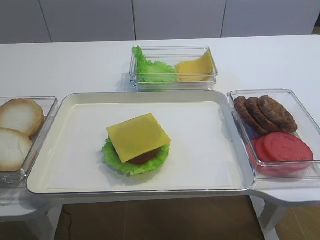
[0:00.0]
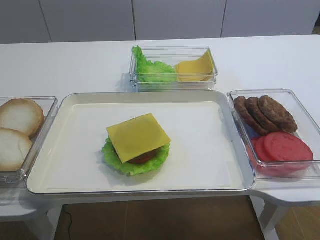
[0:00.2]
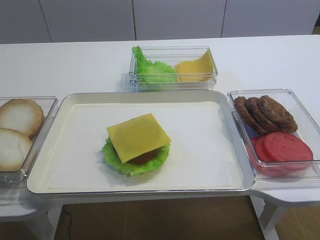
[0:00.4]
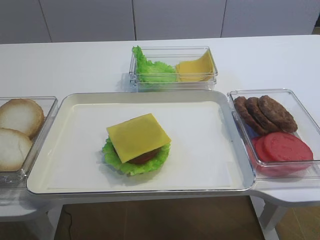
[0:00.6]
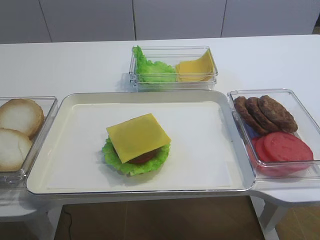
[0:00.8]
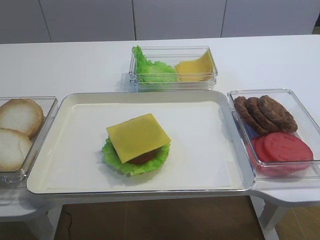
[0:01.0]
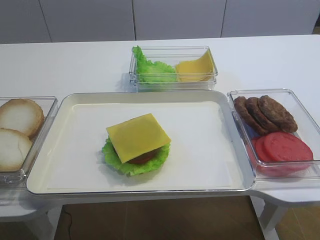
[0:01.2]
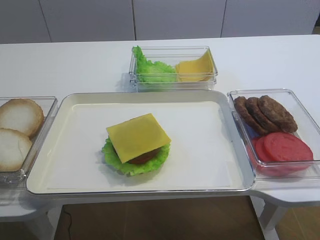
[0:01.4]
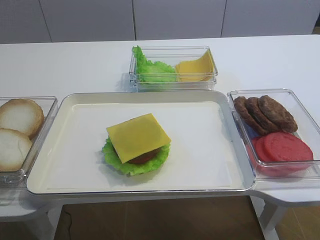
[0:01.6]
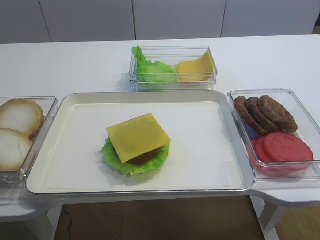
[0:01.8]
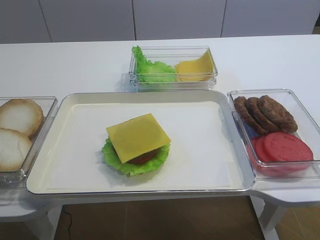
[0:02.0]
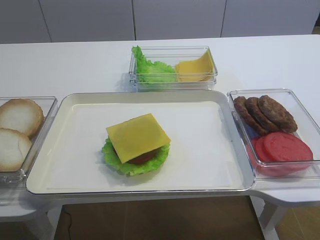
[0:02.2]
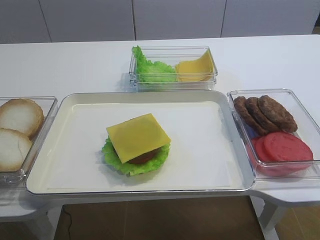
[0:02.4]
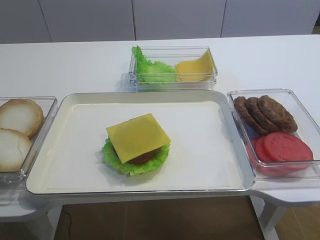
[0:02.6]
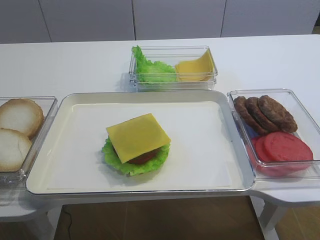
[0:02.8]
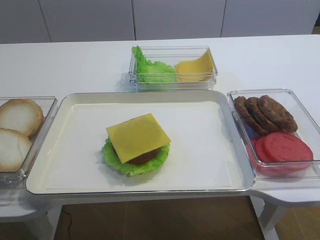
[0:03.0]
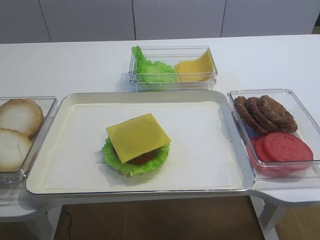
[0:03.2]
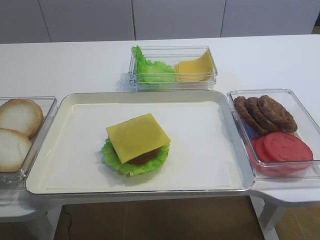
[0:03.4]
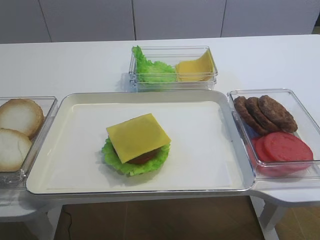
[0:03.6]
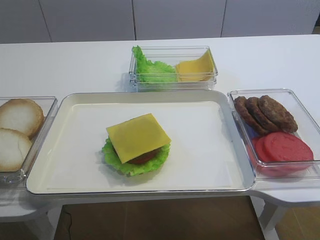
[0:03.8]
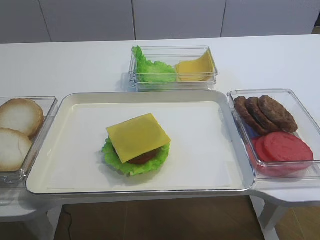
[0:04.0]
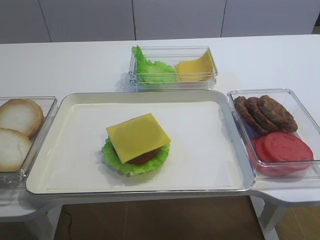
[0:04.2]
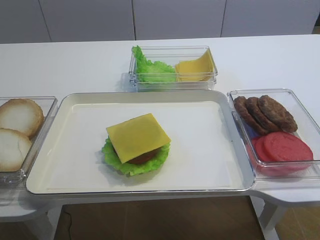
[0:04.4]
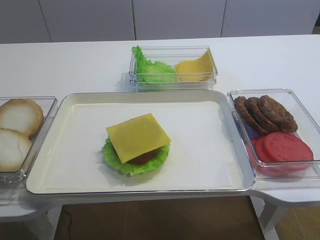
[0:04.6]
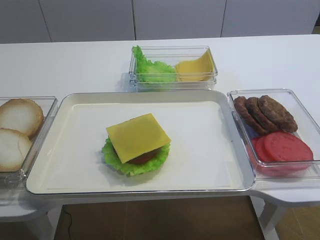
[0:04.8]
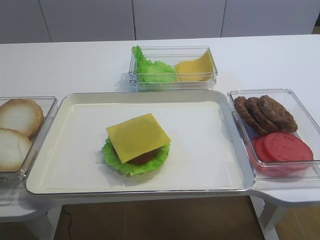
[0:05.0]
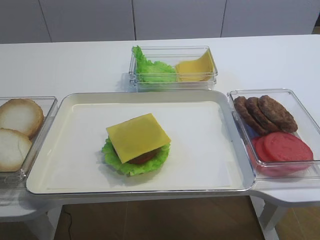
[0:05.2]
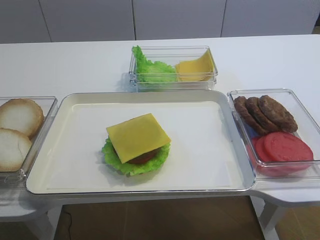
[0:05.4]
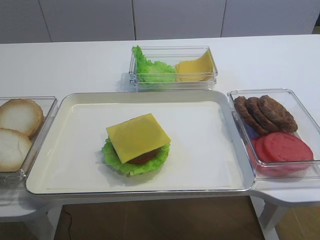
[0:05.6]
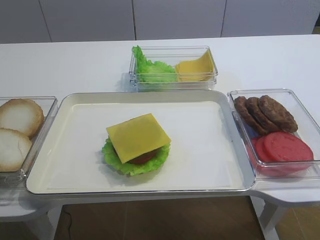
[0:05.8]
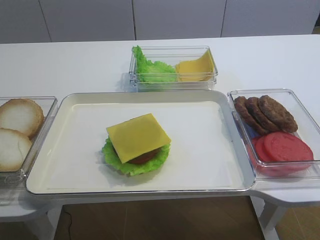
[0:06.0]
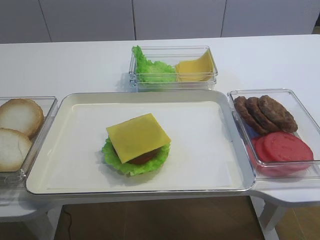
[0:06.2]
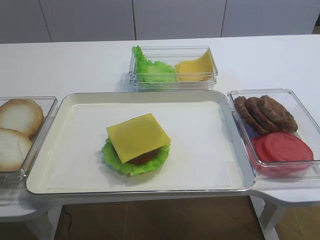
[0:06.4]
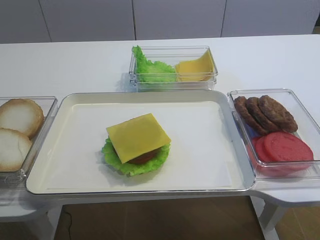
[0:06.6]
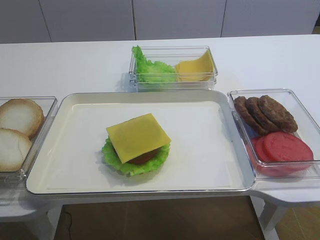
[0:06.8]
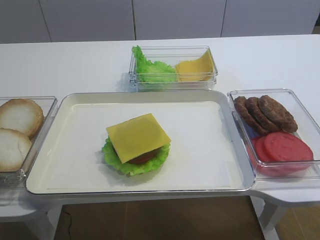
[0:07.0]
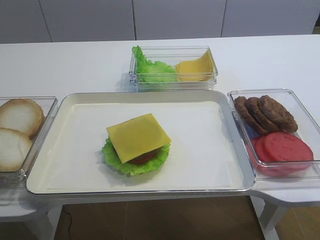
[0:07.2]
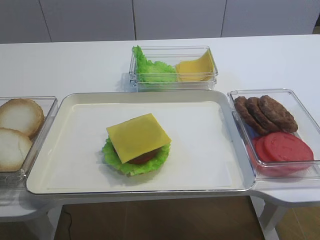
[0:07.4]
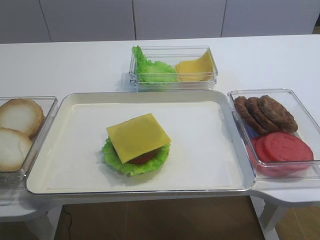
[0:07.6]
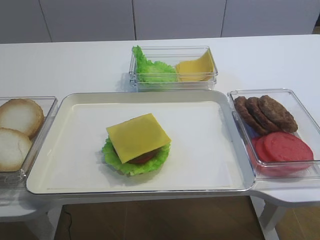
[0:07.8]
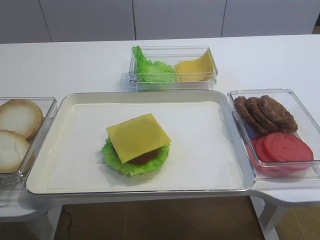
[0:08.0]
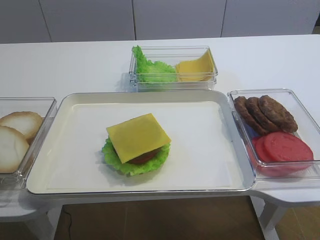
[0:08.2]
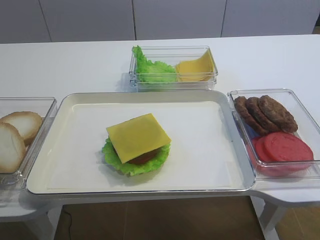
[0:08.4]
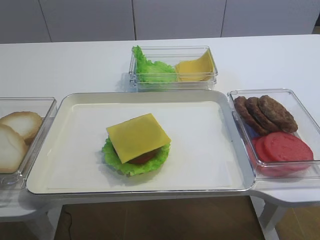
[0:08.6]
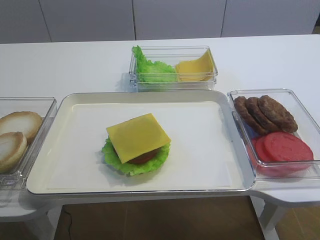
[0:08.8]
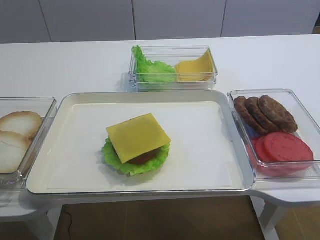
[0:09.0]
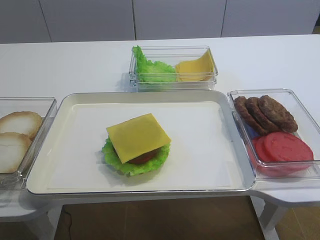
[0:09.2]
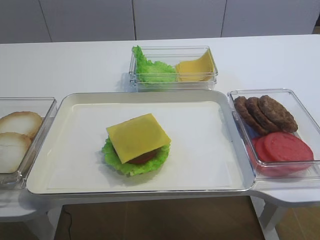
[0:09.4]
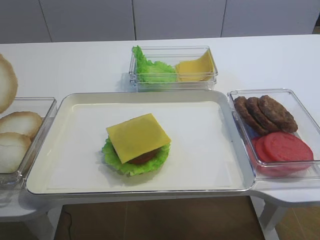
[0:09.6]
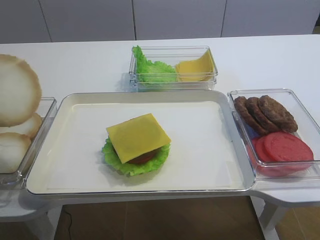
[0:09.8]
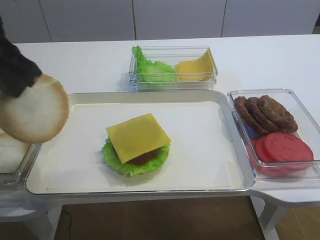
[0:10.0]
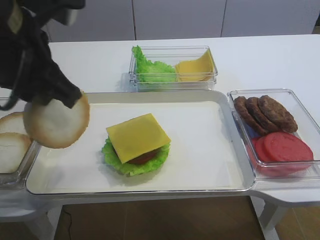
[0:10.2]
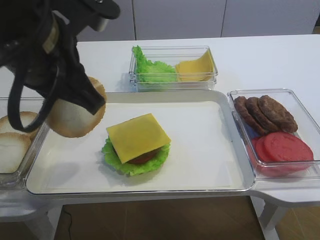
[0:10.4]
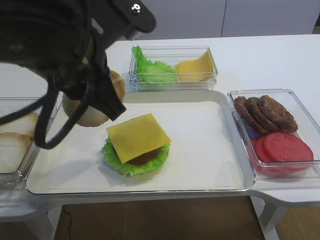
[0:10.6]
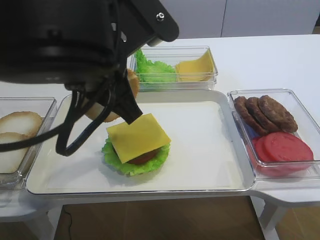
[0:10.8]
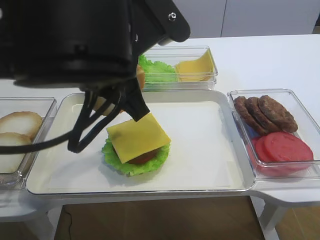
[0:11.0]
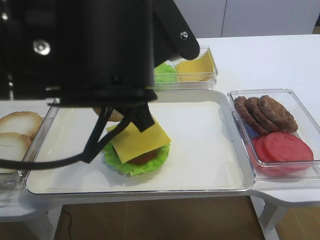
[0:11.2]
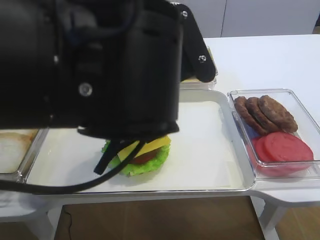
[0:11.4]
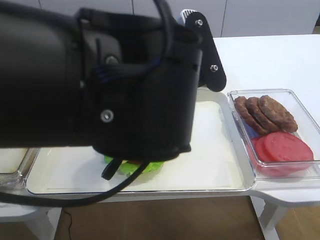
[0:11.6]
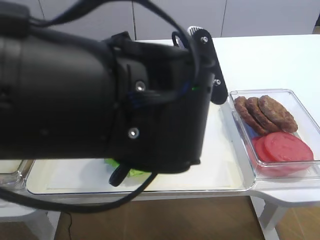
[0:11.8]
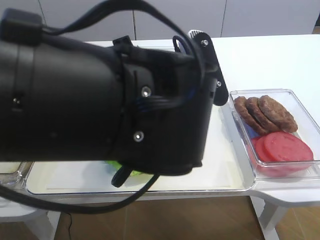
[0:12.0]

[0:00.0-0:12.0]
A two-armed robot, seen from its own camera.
Step, 0:00.0 to 0:09.4: Pick up the hamburger lid with the left gripper.
0:07.6 to 0:09.0: The left gripper shifts roughly 10 cm upward and backward.
0:09.0 to 0:10.4: The left gripper is displaced to the right by roughly 20 cm.
0:10.4 to 0:12.0: The left gripper shifts roughly 10 cm to the right and downward.

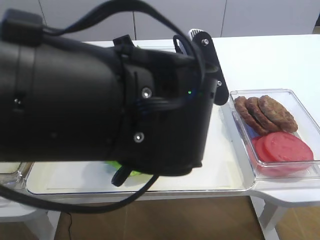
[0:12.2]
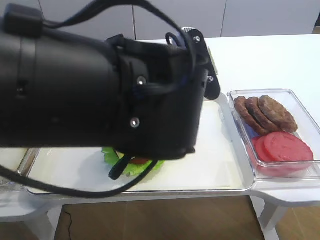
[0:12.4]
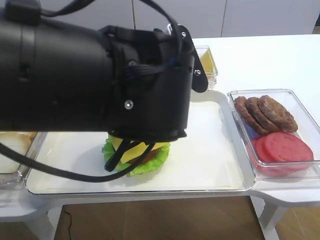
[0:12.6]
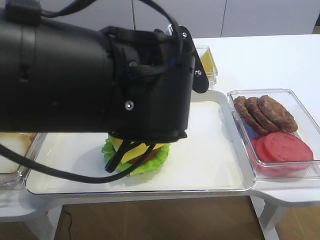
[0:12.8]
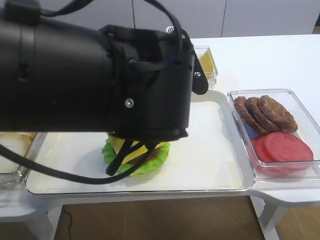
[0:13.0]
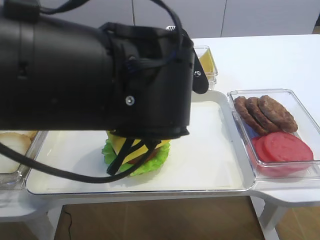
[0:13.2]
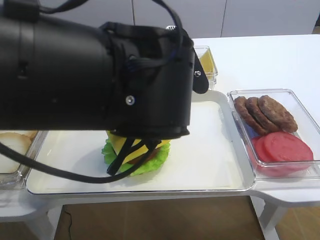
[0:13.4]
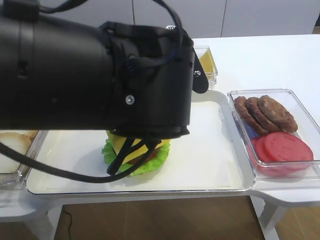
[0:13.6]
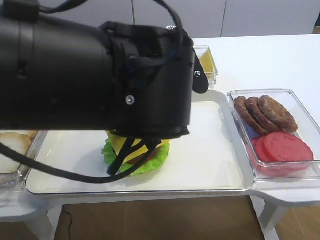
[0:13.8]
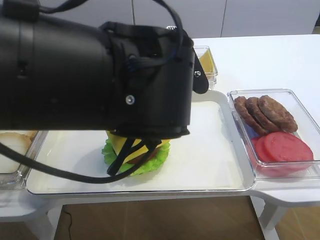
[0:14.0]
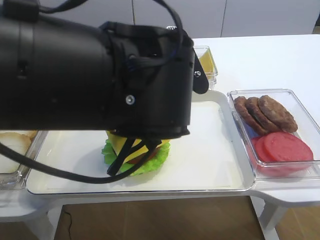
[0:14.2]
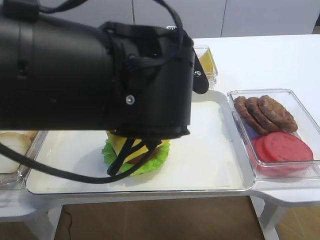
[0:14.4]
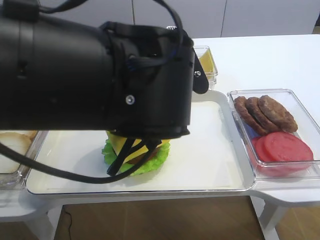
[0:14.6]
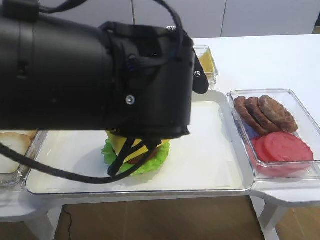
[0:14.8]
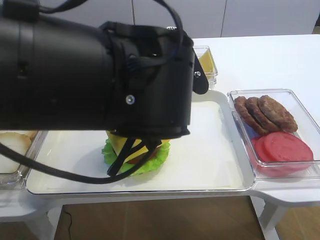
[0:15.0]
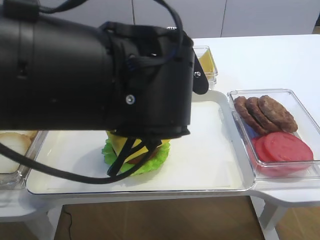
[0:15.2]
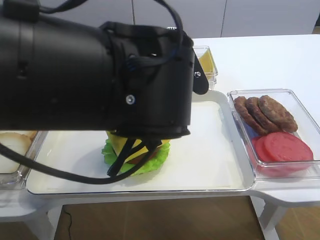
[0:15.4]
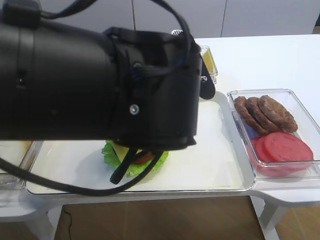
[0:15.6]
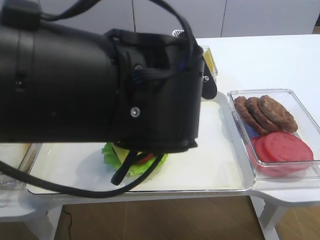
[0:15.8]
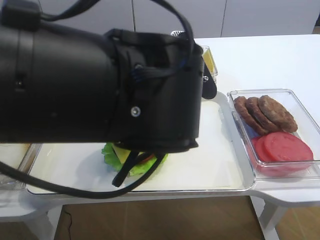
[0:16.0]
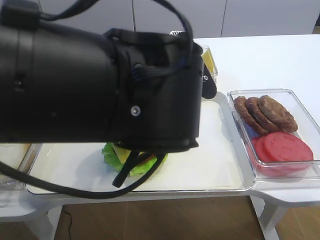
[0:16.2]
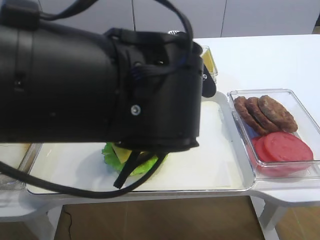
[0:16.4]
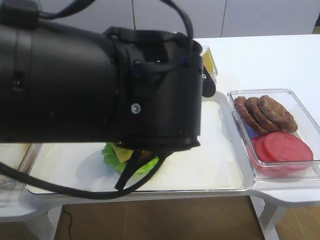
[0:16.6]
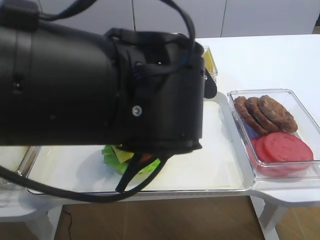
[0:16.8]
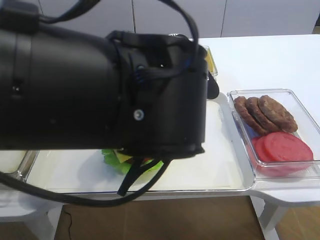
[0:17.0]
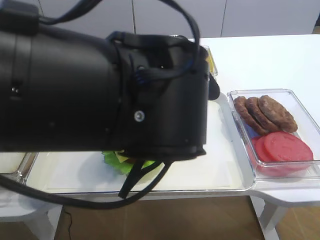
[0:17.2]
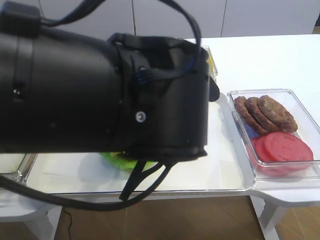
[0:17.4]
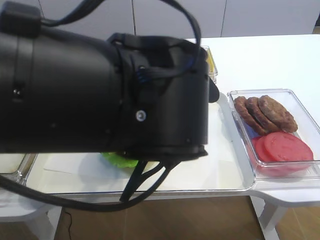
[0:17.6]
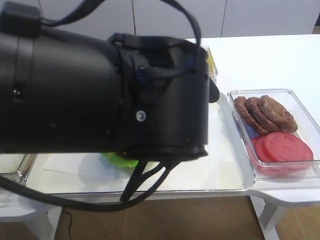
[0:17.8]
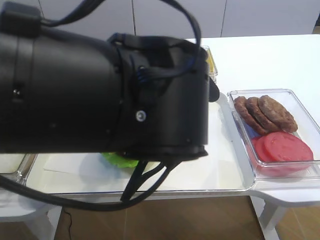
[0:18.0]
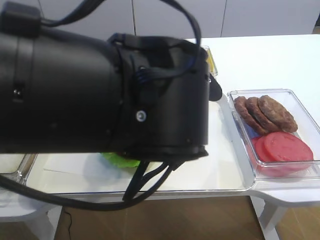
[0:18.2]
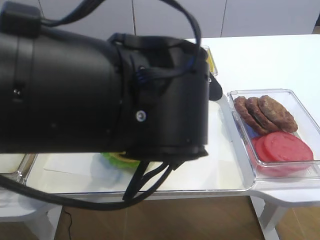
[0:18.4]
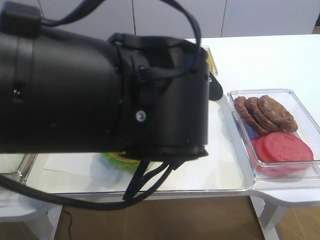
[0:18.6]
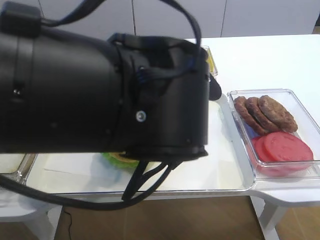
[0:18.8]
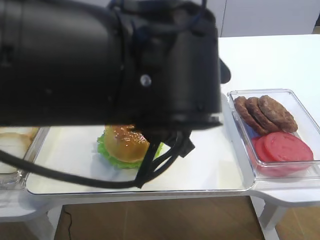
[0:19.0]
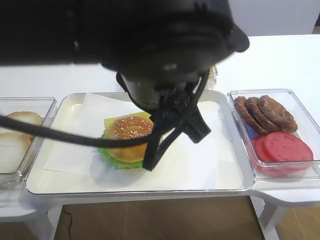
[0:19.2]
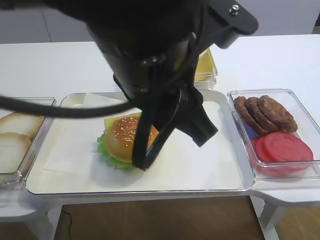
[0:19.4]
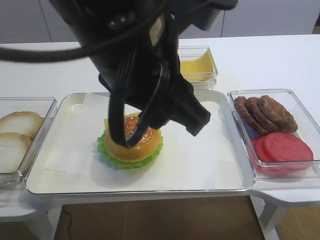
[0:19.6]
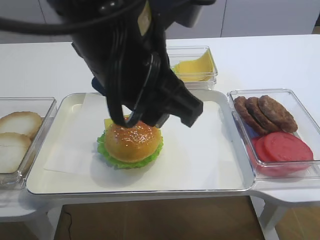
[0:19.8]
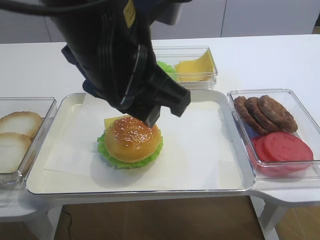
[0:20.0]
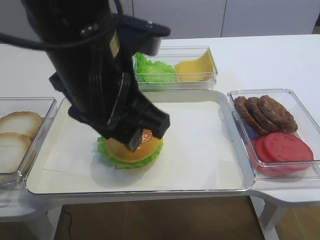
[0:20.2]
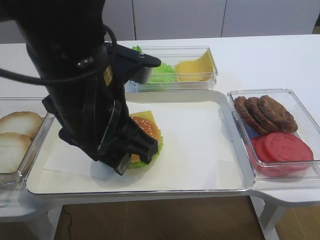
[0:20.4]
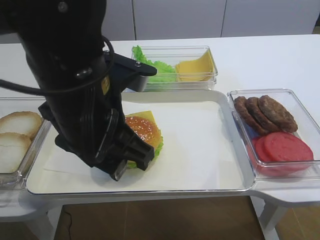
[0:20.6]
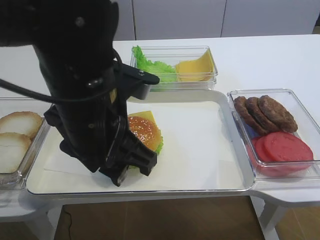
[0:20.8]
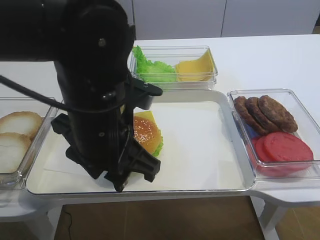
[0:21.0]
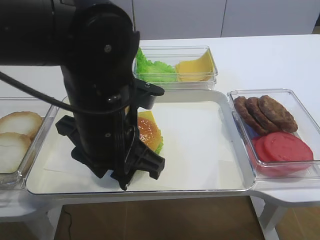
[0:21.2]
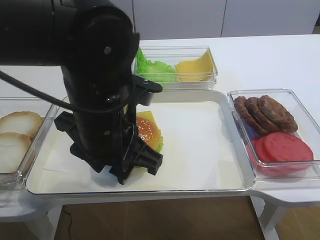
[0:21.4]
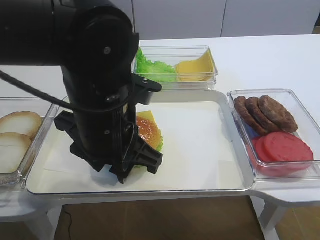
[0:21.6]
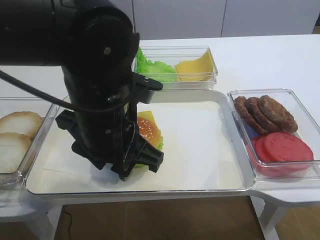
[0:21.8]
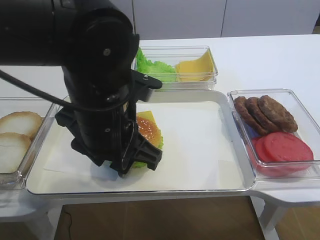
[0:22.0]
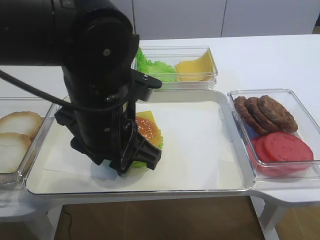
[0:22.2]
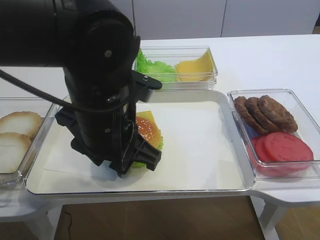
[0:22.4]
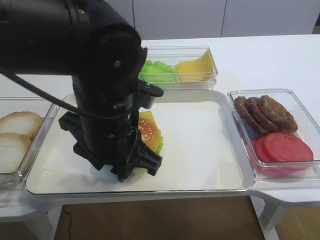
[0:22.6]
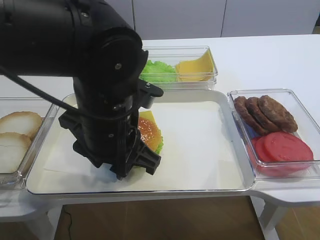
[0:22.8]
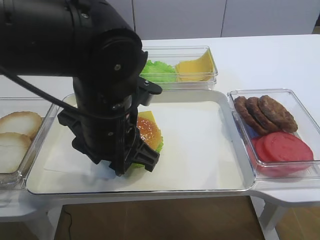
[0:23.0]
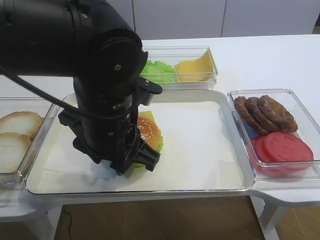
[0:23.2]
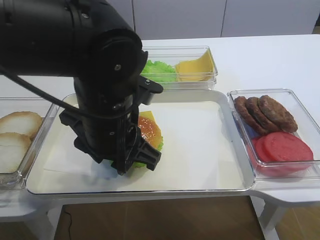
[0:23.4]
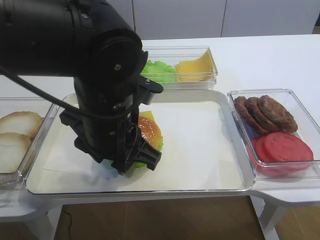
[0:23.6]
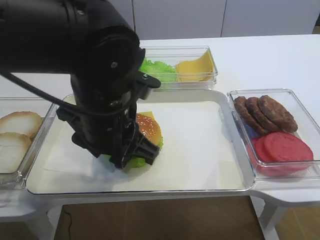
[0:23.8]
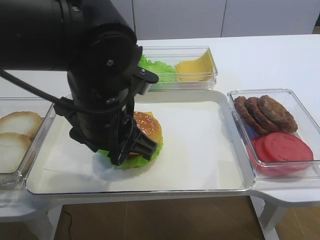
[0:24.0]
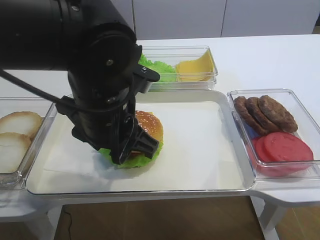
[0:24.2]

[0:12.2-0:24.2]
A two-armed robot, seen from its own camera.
0:13.8 to 0:15.2: The left gripper opens up.
0:15.2 to 0:18.2: The grippers stay close to where they were, moving slightly.
0:18.2 to 0:19.8: The left gripper heads upward, covering roughly 10 cm.
0:19.8 to 0:21.2: The left gripper moves downward, about 10 cm.
0:21.2 to 0:24.2: The grippers stay close to where they were, moving slightly.
